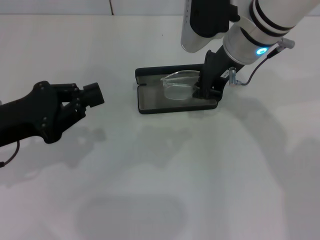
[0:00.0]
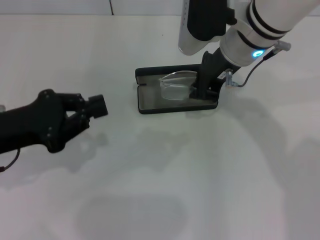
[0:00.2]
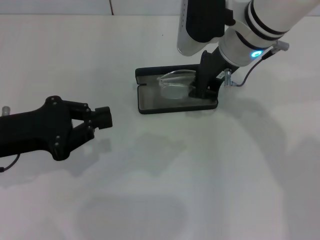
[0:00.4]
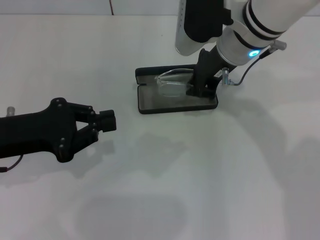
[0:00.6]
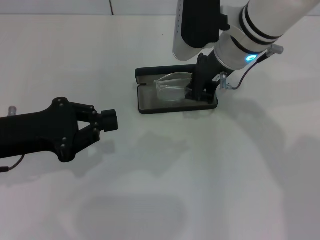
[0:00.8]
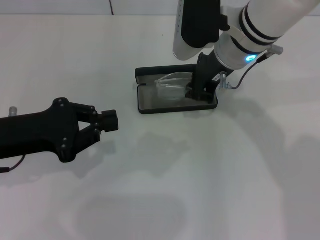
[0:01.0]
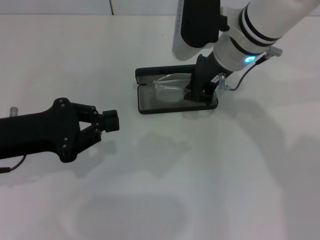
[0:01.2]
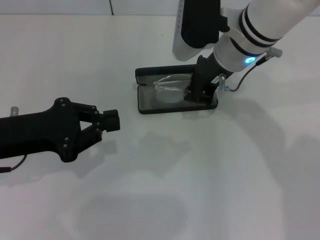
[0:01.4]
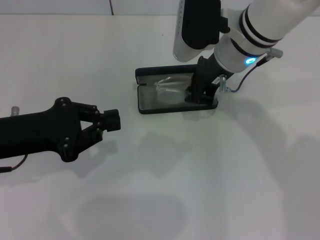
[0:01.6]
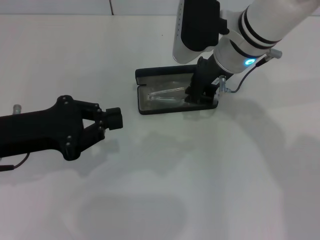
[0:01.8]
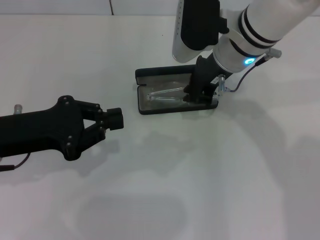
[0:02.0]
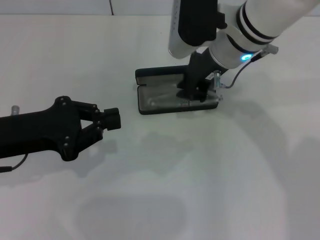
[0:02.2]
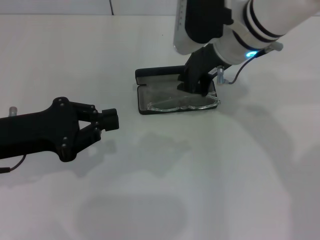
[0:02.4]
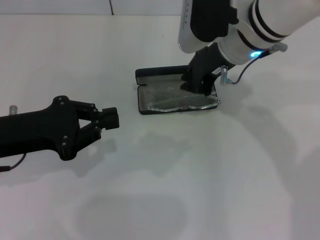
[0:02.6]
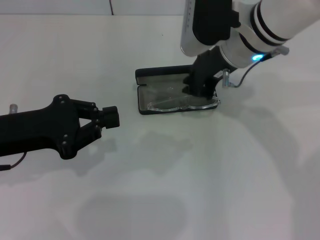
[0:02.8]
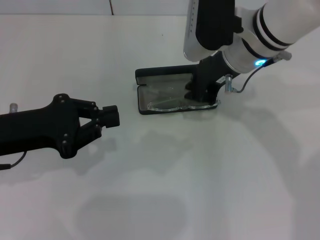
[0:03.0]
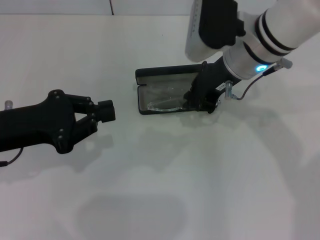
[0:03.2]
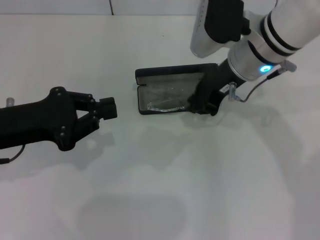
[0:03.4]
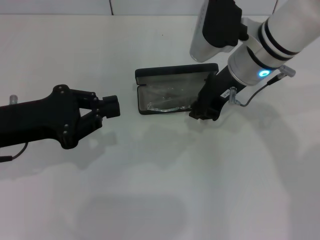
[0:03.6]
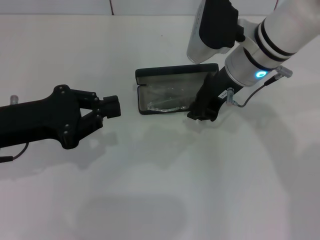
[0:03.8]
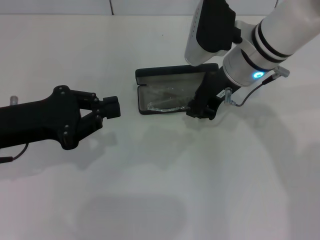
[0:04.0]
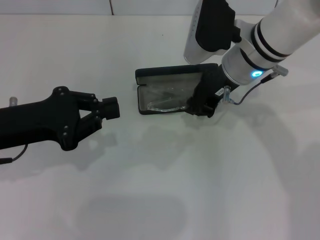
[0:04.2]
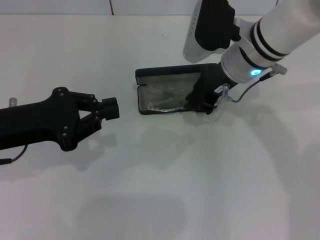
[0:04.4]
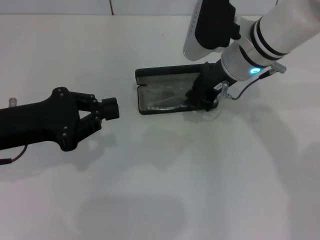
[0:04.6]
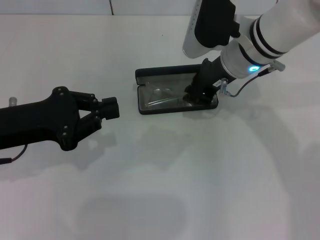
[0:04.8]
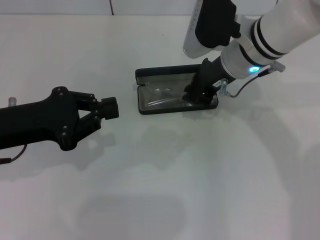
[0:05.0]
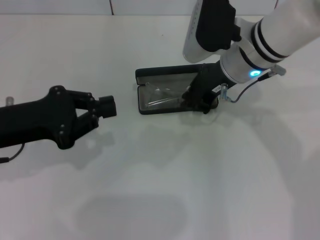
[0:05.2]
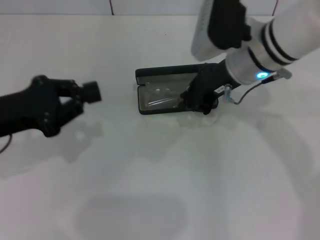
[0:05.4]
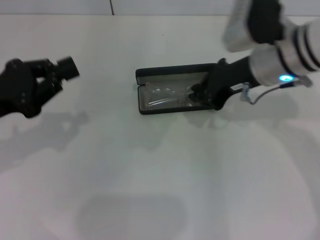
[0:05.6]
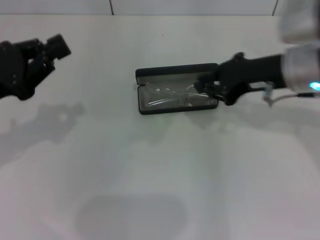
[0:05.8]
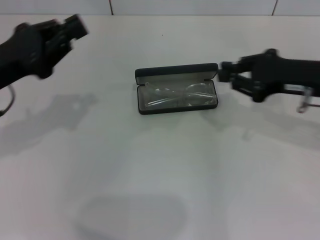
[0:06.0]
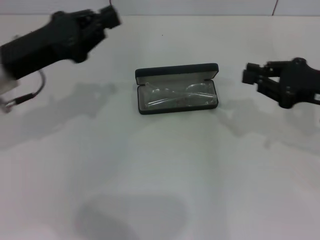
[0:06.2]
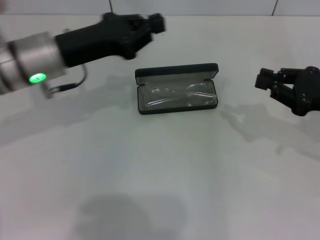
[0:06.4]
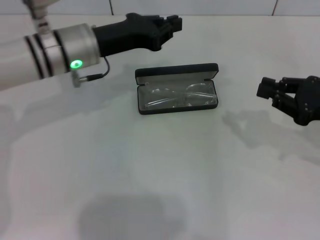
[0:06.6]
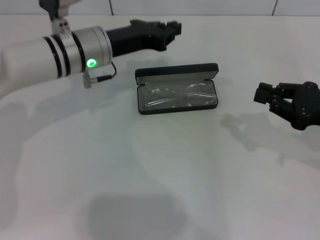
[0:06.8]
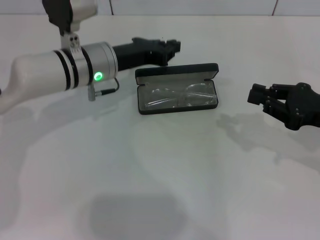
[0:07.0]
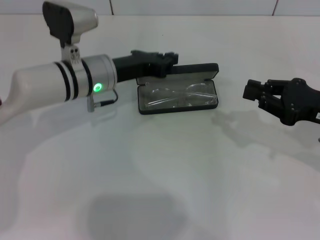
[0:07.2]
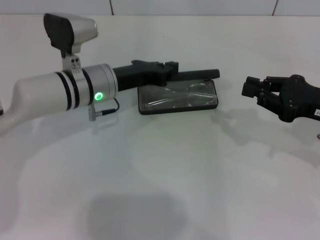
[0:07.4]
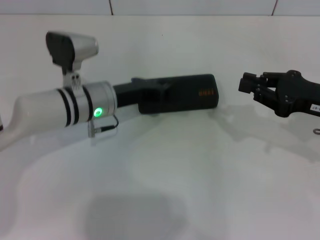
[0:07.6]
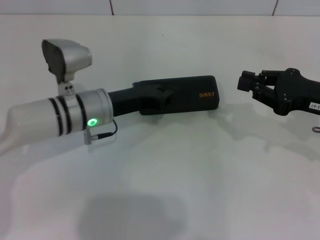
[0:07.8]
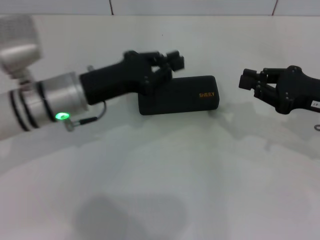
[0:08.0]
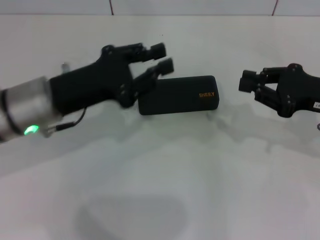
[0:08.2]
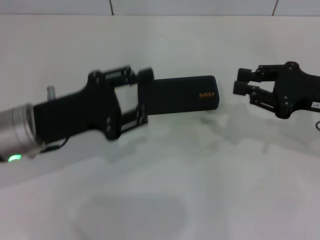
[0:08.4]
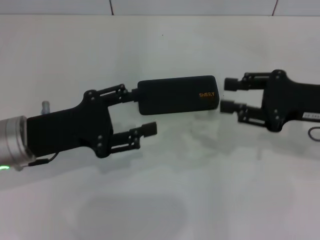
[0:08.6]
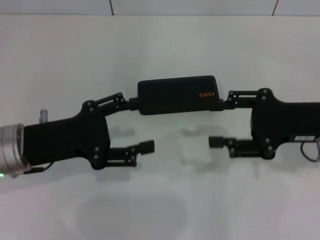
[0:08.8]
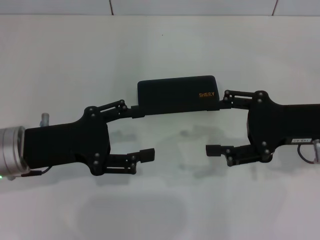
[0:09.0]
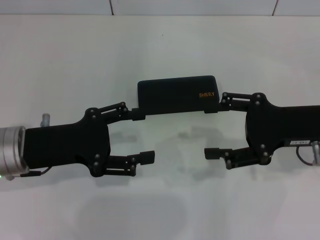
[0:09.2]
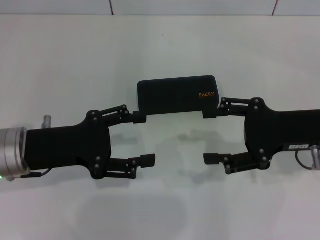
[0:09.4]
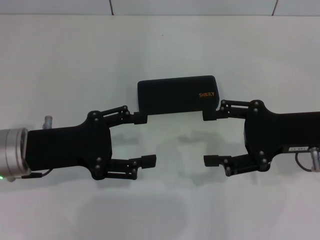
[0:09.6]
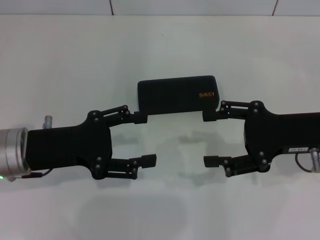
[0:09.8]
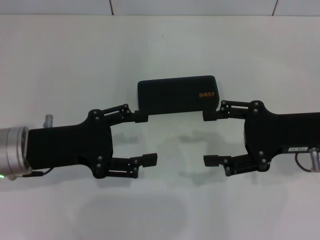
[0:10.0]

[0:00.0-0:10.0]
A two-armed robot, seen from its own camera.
Step, 0:00.0 to 0:04.8: Put the glasses into the case with your right hand.
Step, 0:05.0 to 0:07.6: Close the glasses case with your left hand.
0:00.0 to 0:04.2: The grippers stay close to where they were, moving slightly.
0:04.2 to 0:05.8: The right gripper is displaced to the right by approximately 10 cm.
0:05.8 to 0:07.2: The left gripper shifts roughly 20 cm to the right, forward and downward, while the right gripper travels to the right, downward and backward by approximately 15 cm.
0:07.2 to 0:08.6: The left gripper travels backward and to the left by approximately 15 cm, and opens its fingers.
0:08.6 to 0:10.0: The right gripper opens up. Meanwhile the left gripper opens up.
